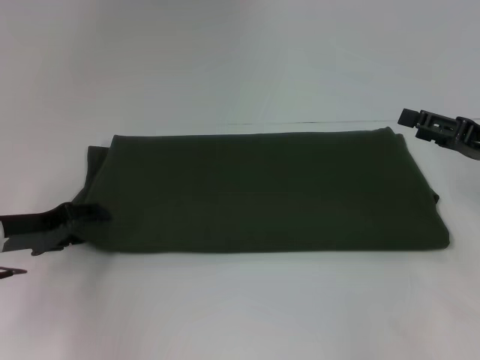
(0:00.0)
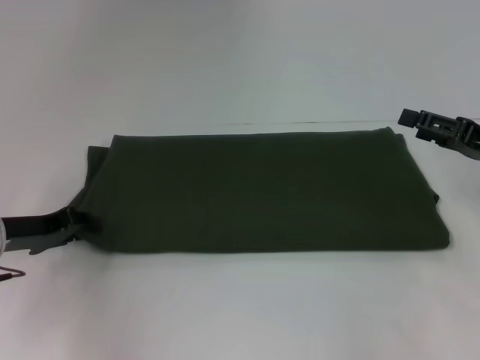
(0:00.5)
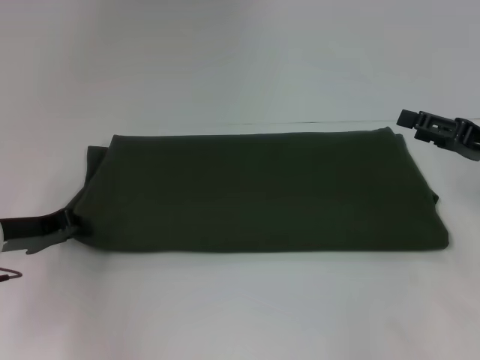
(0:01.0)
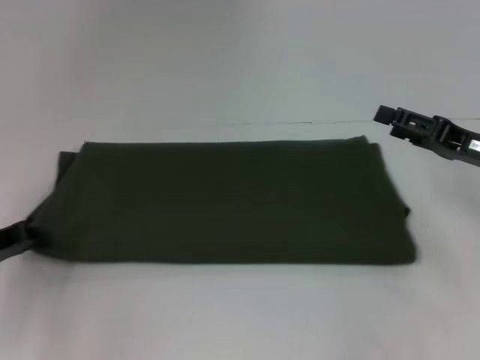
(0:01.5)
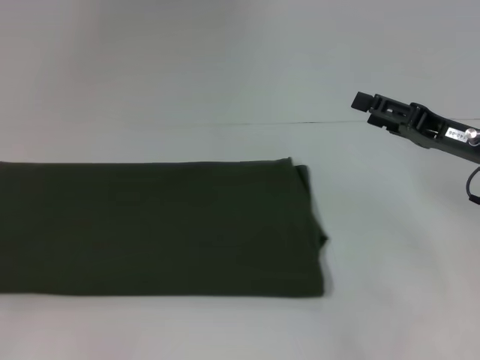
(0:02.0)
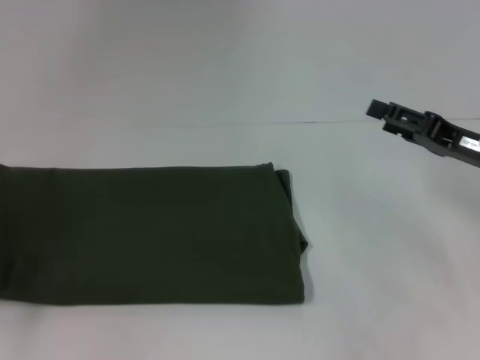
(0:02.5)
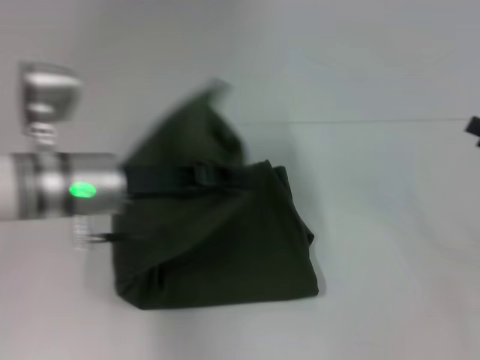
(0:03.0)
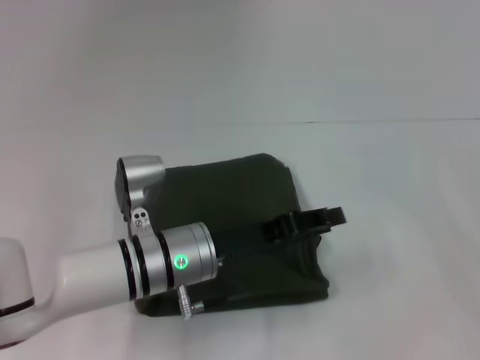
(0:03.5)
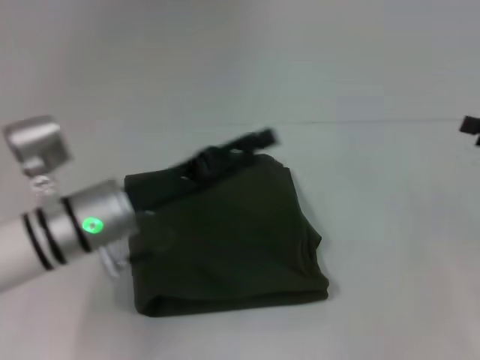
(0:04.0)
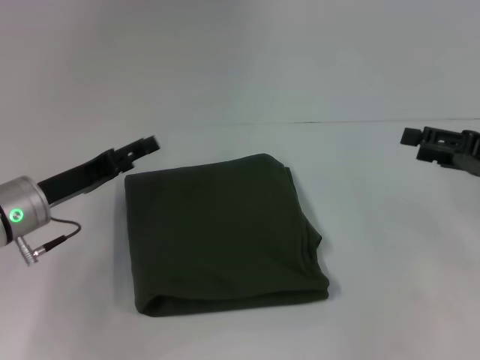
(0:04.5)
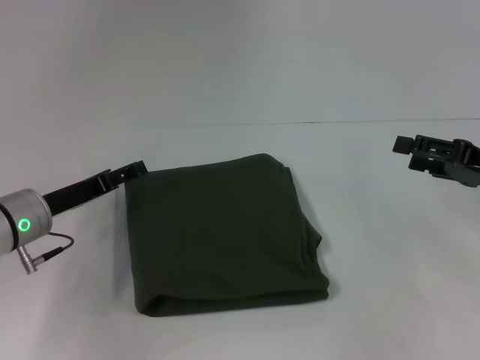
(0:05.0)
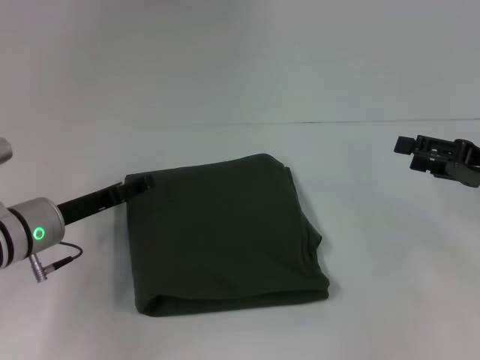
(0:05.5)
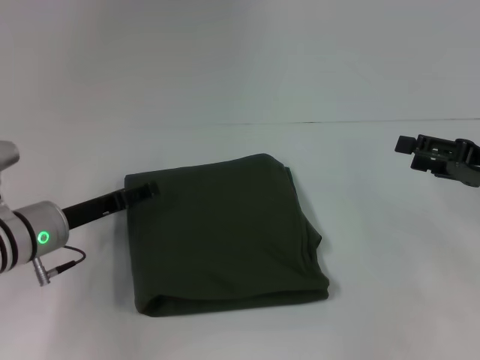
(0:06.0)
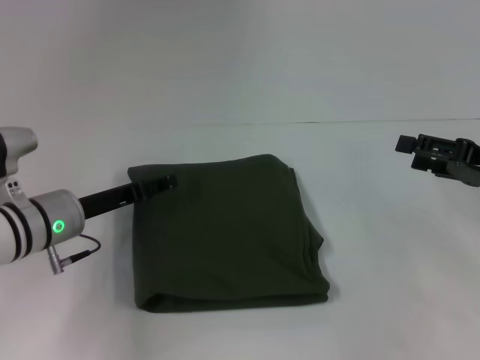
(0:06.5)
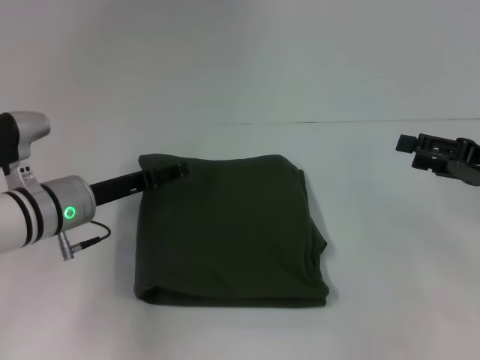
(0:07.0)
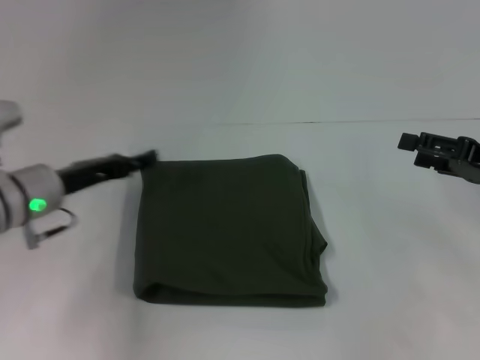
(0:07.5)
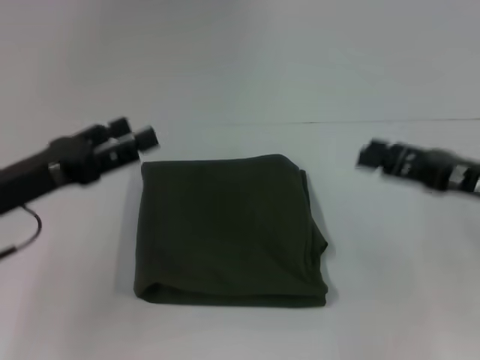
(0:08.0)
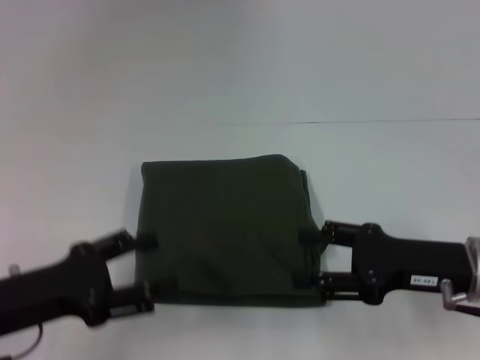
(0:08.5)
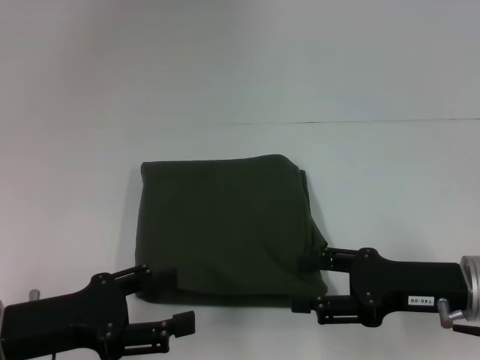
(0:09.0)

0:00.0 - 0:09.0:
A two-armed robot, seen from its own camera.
Step, 0:00.0 - 0:03.5: Fold the clothes with your left hand.
0:00.0 - 0:02.0: The left gripper travels to the left and backward by about 15 cm, and closes.
0:02.0 - 0:04.5: The left gripper is displaced to the right and forward by about 20 cm, and opens. The right gripper shifts some 5 cm to the right.
0:04.5 - 0:07.0: There are only small adjustments of the grippers.
0:07.0 - 0:09.0: The left gripper travels backward by some 15 cm. Meanwhile the right gripper heads to the left and backward, covering roughly 10 cm.
